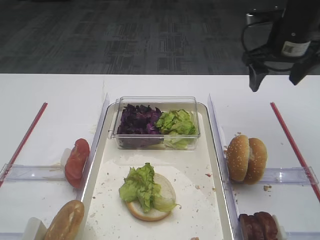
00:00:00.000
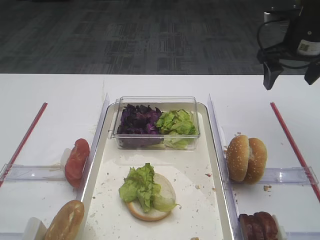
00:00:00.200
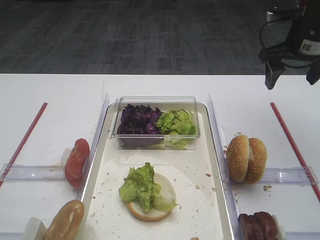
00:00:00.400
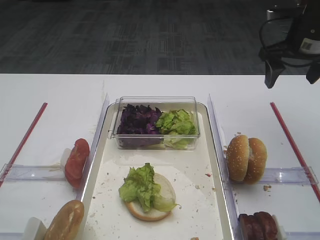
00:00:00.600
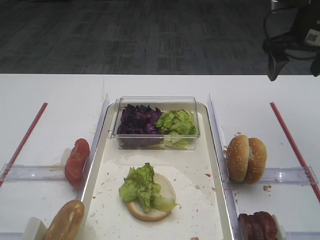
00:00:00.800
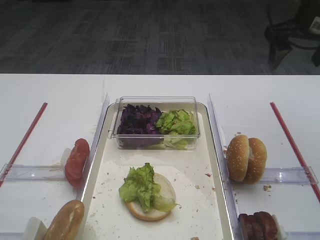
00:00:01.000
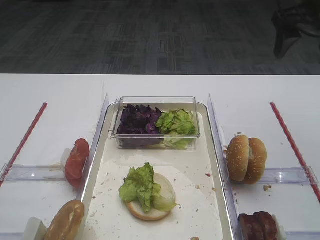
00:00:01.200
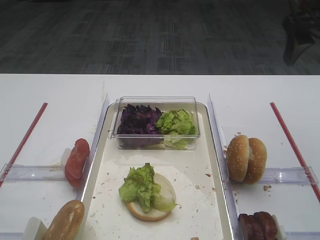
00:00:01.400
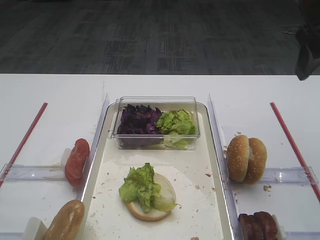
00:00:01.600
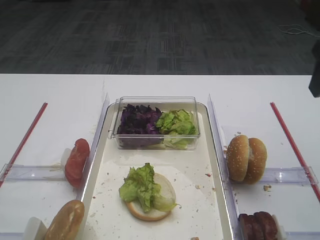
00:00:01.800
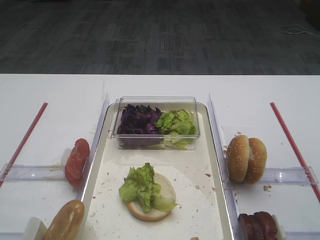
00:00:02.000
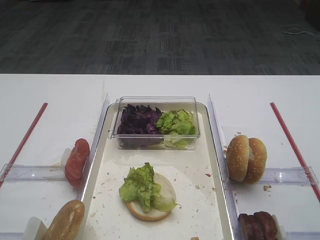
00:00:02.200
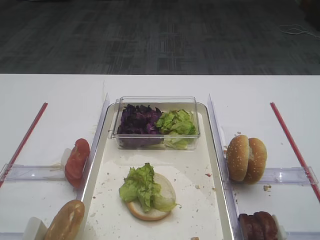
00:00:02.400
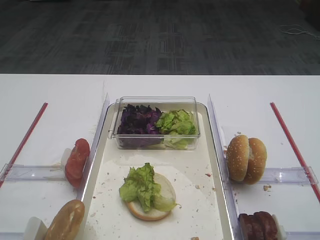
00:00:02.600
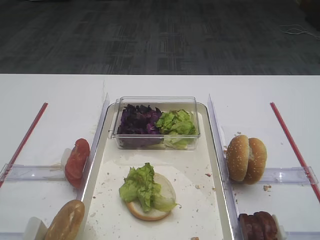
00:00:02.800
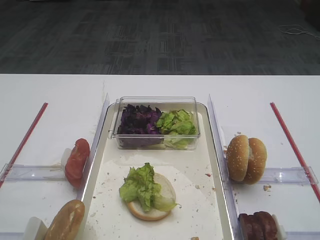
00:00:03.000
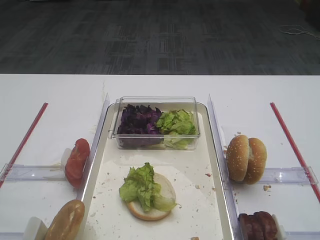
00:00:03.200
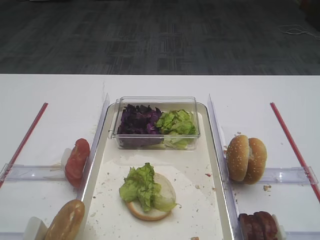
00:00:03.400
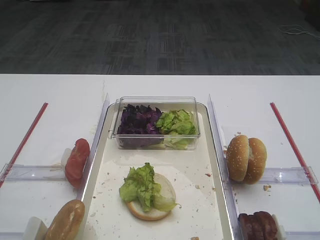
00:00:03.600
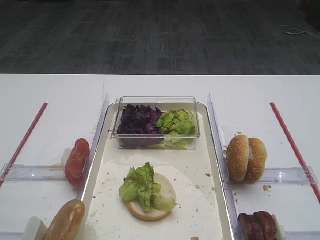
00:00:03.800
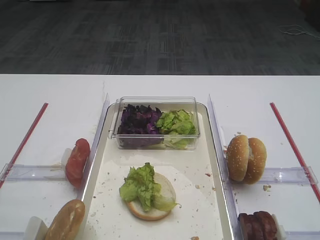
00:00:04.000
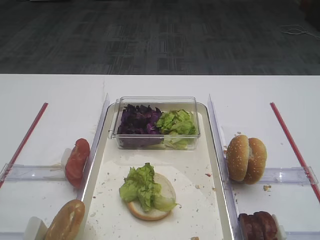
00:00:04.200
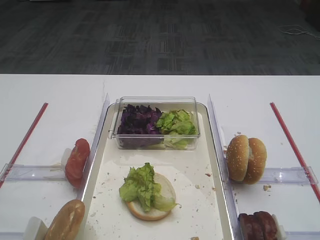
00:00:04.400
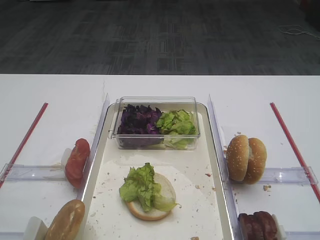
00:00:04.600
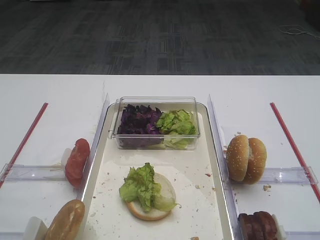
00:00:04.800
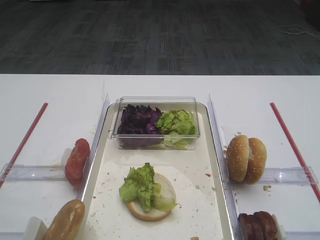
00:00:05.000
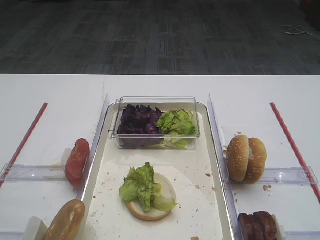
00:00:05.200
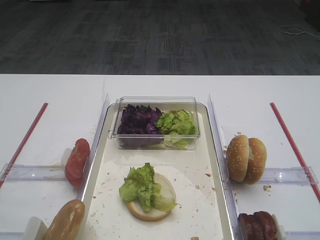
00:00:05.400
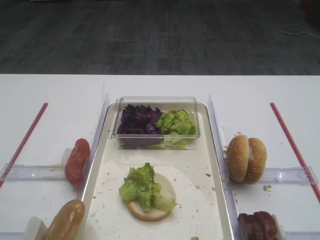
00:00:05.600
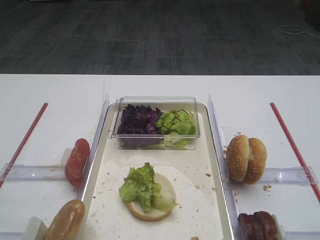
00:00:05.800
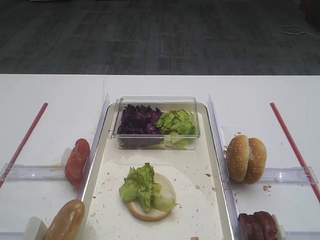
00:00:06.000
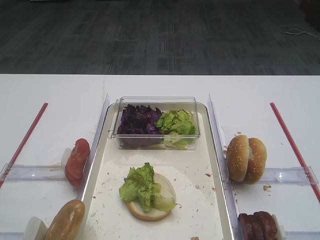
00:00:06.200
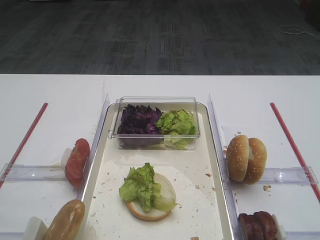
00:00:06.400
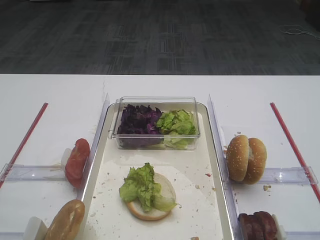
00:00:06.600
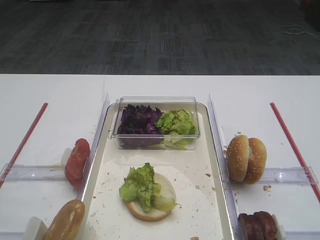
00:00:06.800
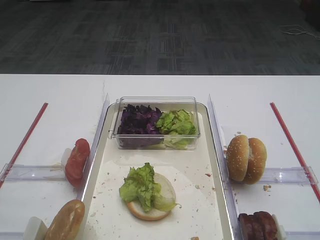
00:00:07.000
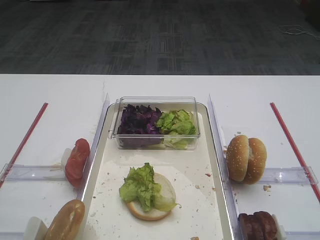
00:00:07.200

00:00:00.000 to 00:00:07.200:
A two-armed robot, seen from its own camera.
00:00:00.000 to 00:00:01.400: The right gripper moves upward and backward, roughly 10 cm.
00:00:01.400 to 00:00:02.800: The right gripper heads backward, covering roughly 30 cm.
00:00:04.400 to 00:00:07.200: Both grippers stay about where they are.
